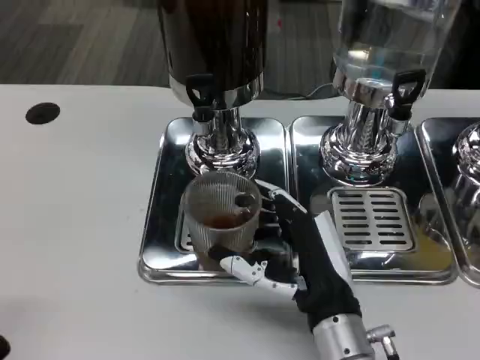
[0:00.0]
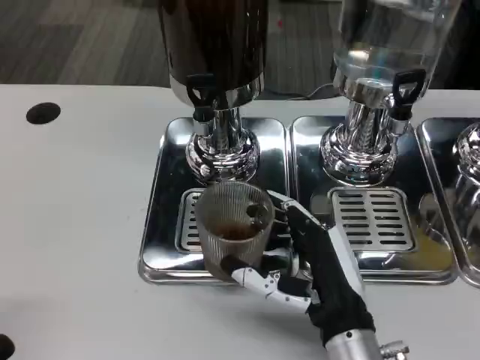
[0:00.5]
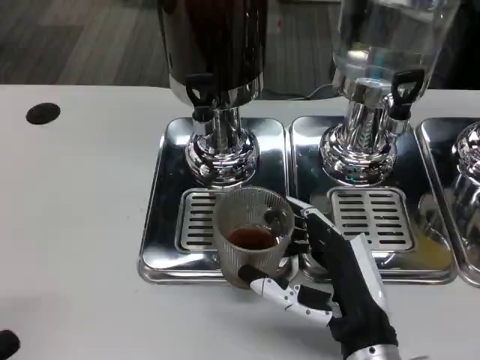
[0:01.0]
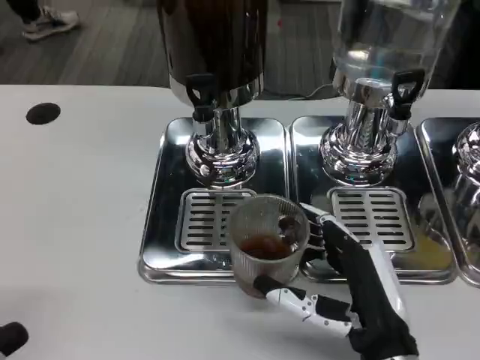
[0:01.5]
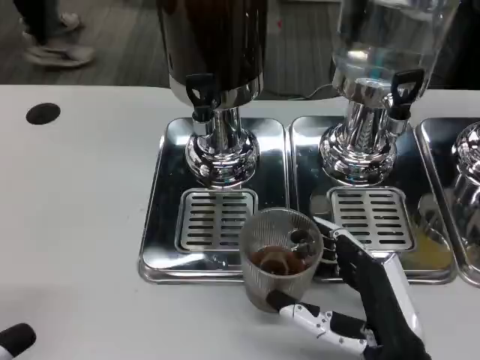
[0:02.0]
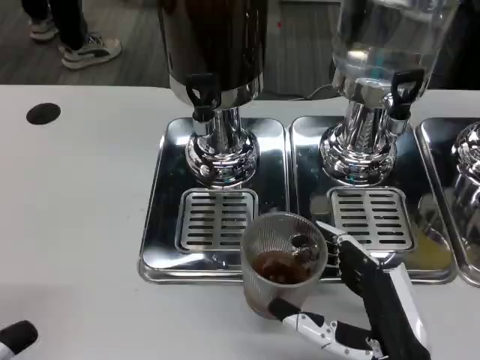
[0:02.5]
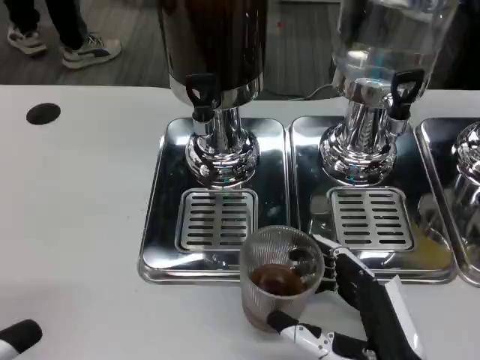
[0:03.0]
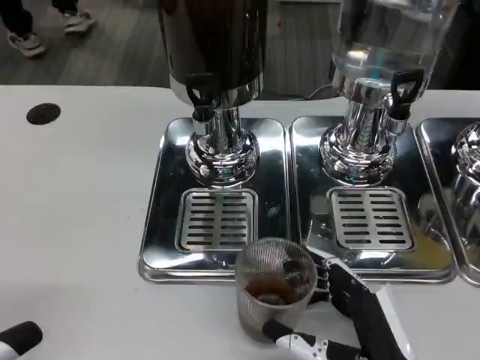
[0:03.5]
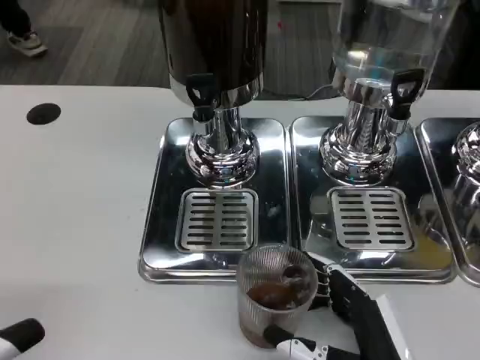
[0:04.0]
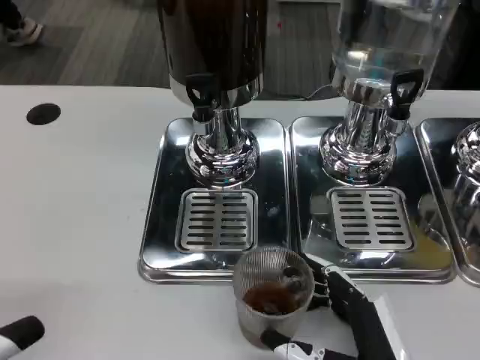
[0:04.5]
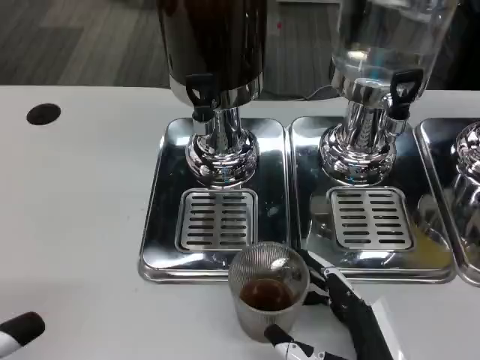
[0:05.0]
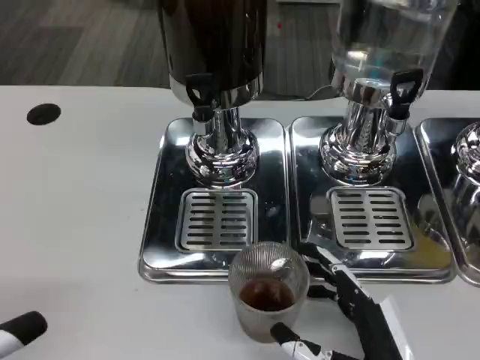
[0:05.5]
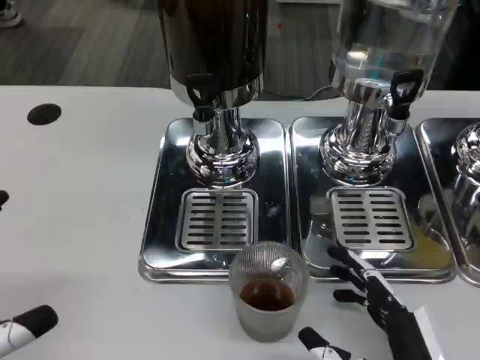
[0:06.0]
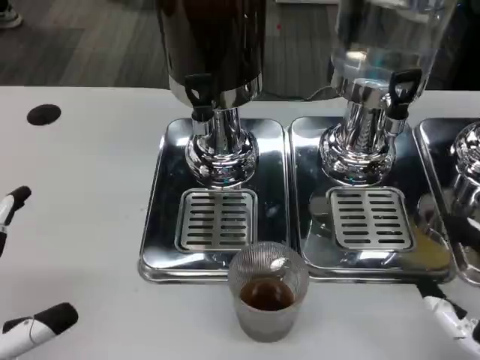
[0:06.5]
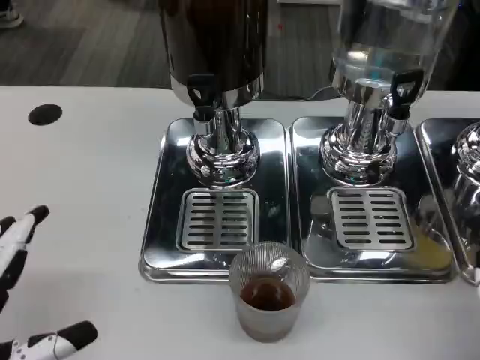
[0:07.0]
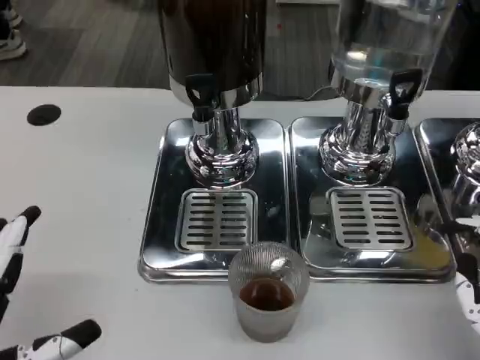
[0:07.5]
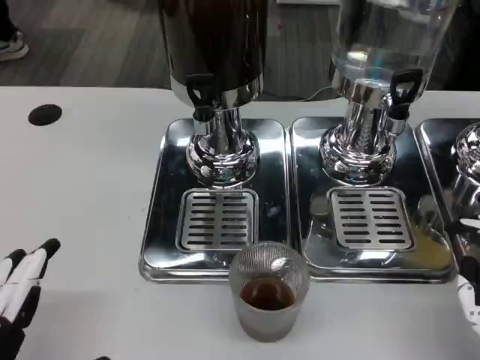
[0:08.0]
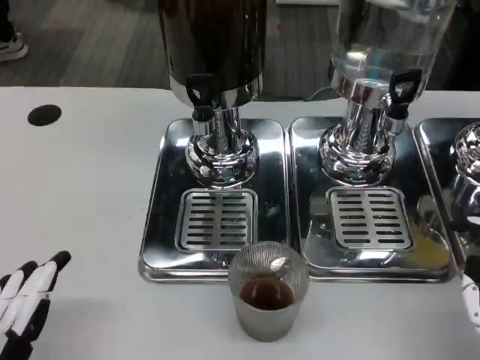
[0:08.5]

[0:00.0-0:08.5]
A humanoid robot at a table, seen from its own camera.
Task of the whole recording: Grasp the cup under the faucet to collect the drink, then remove the cup.
0:00.0 to 0:02.0: The right hand goes roughly 10 cm to the right and backward.
0:02.0 to 0:04.0: There are only small adjustments of the hands.
0:04.0 to 0:06.5: The right hand shifts some 10 cm to the right.
0:06.5 to 0:08.5: The left hand shifts approximately 5 cm downward.

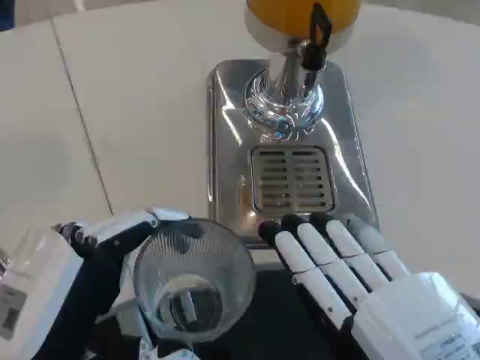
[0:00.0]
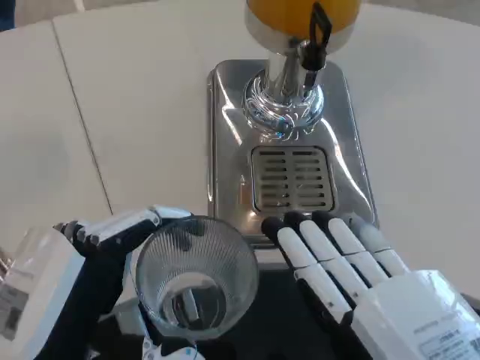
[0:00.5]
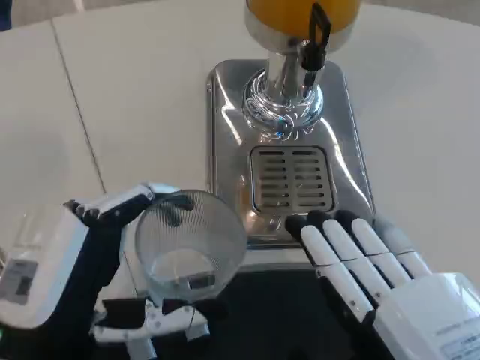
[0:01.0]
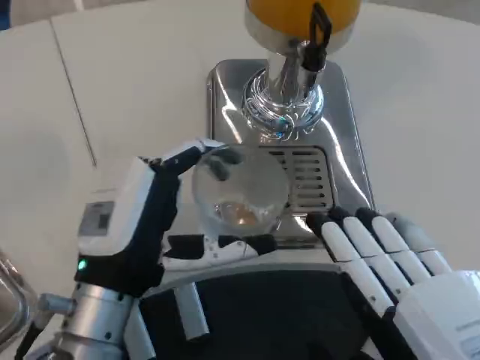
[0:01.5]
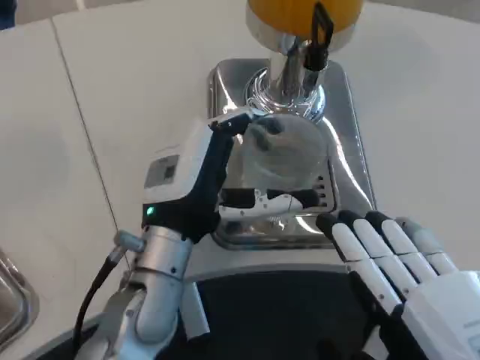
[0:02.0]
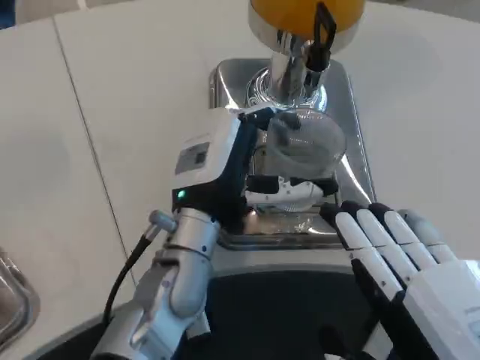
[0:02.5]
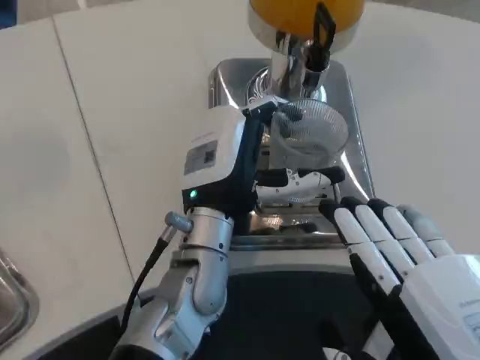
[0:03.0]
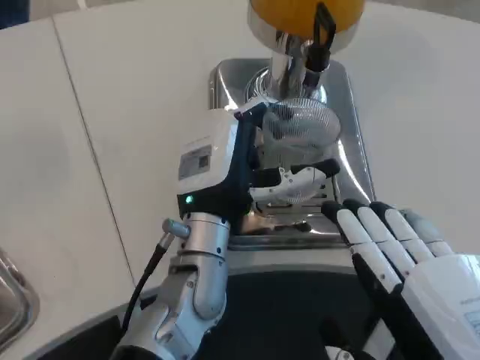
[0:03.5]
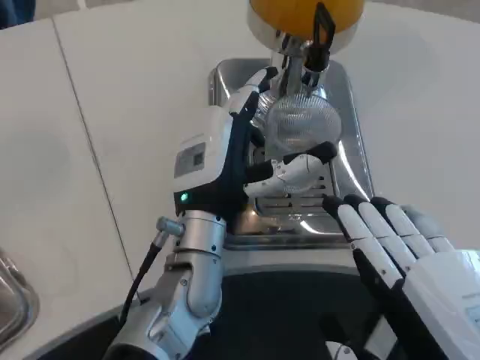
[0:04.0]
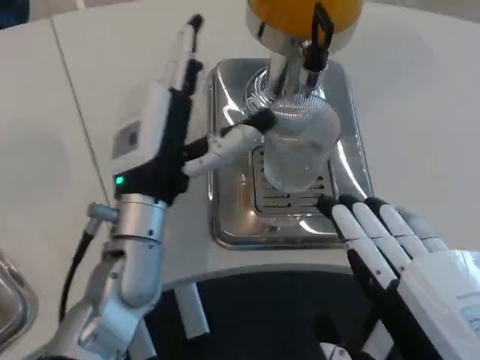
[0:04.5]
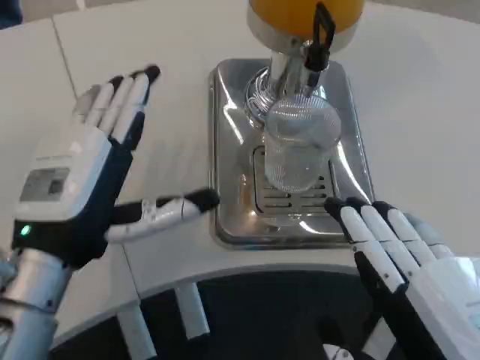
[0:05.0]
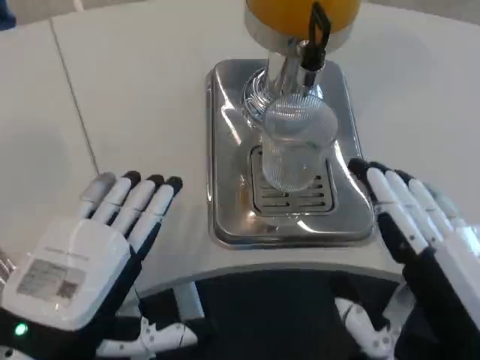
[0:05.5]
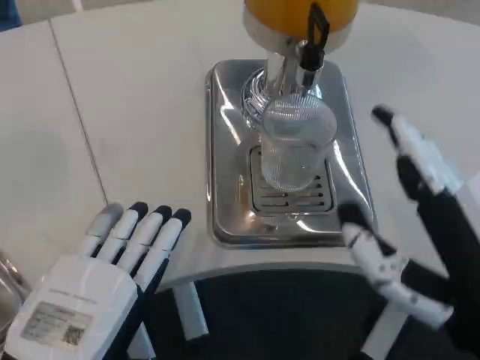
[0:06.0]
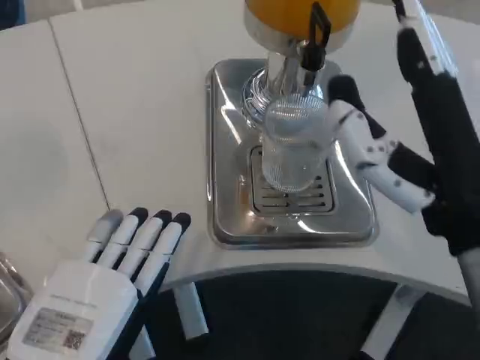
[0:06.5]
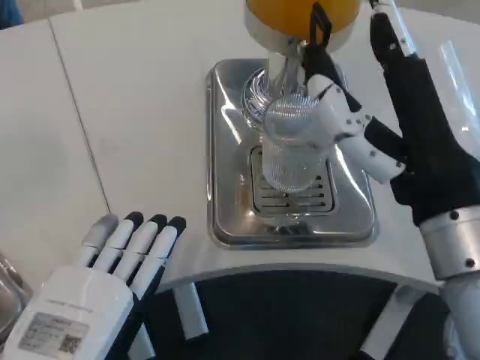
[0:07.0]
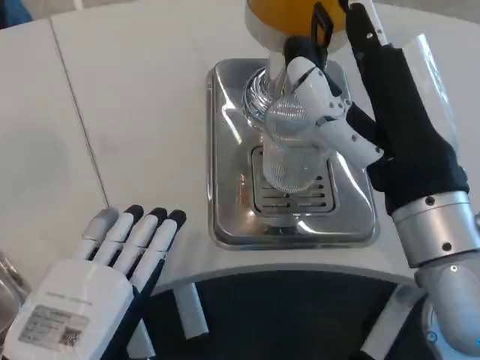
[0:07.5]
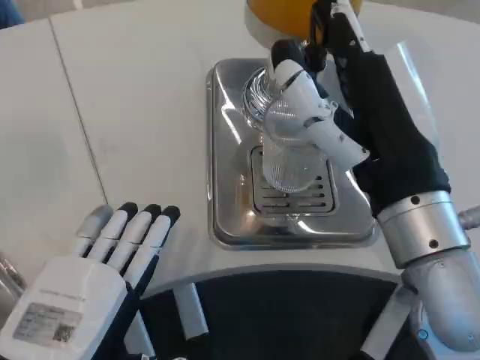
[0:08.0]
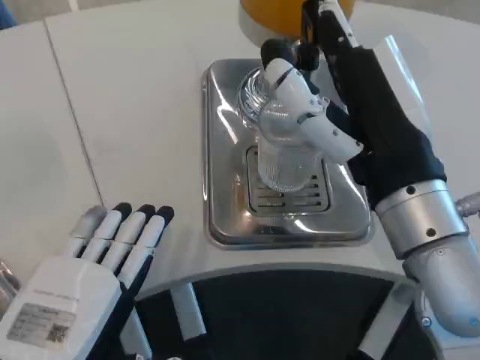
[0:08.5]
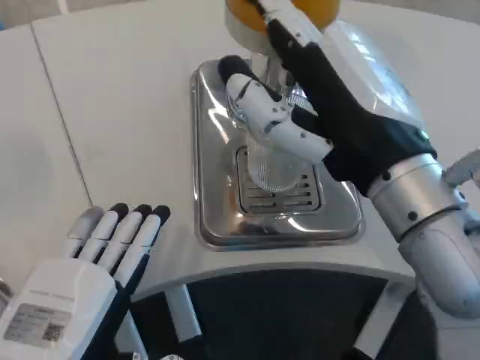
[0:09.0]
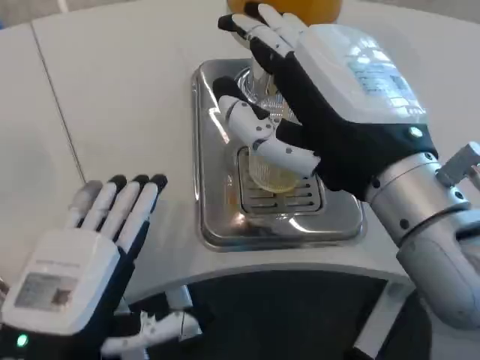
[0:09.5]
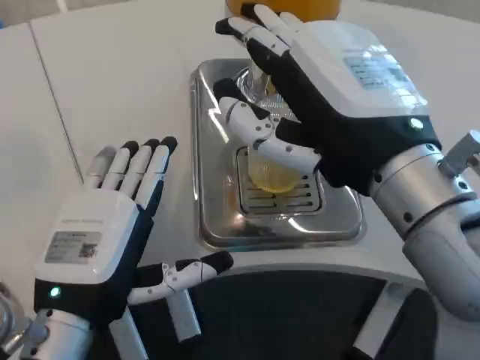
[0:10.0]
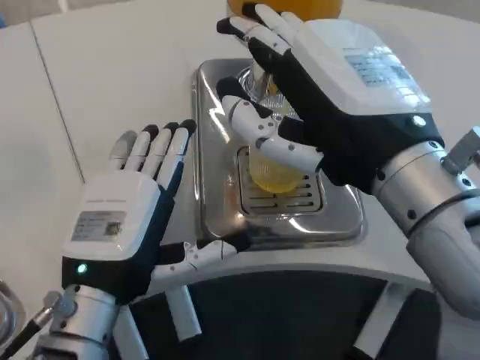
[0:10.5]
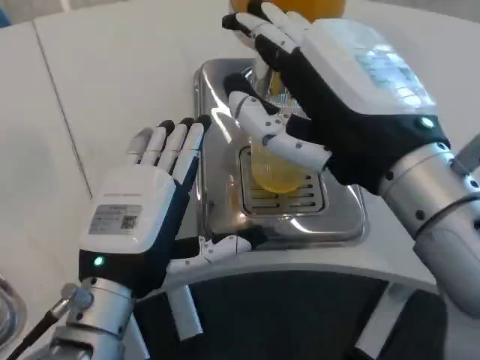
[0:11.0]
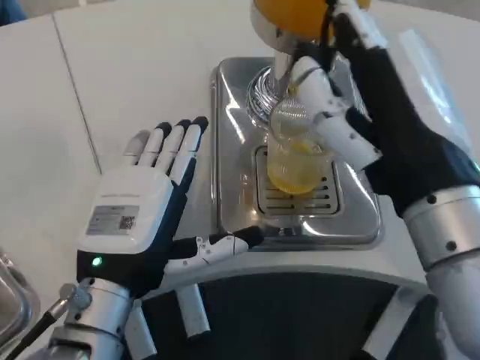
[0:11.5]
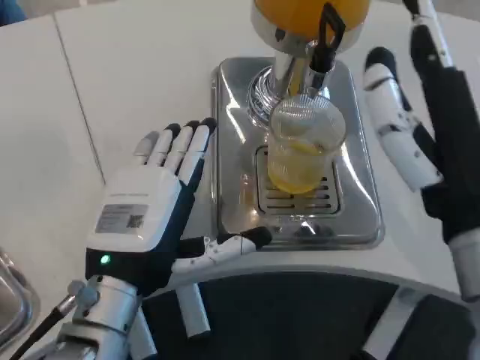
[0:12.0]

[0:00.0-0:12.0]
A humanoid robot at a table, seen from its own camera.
Task of the whole recording: Grasp the cup under the faucet to collect the drink, then remove the cup.
0:00.0 to 0:02.0: The left hand is displaced forward and to the right by approximately 20 cm.
0:04.0 to 0:06.0: The left hand goes about 25 cm backward and to the left.
0:06.0 to 0:08.0: The right hand travels forward by some 10 cm.
0:08.0 to 0:10.0: The left hand goes about 5 cm forward. Meanwhile the right hand shifts about 5 cm upward.
0:10.0 to 0:12.0: The right hand is displaced downward by roughly 5 cm.

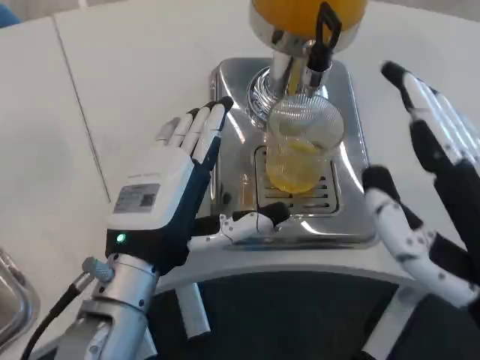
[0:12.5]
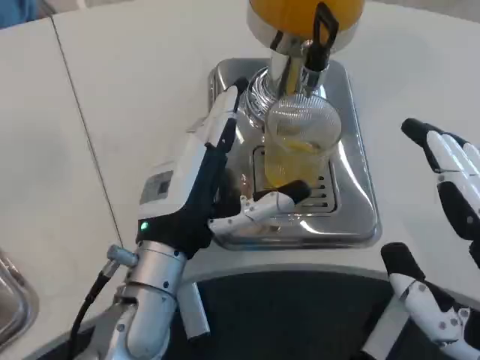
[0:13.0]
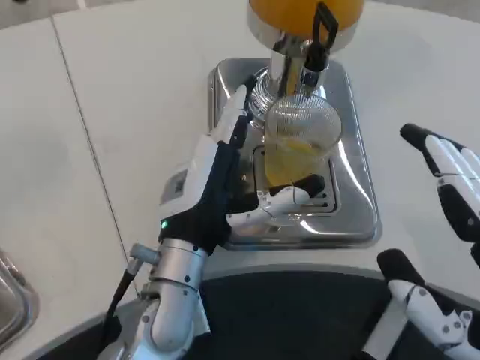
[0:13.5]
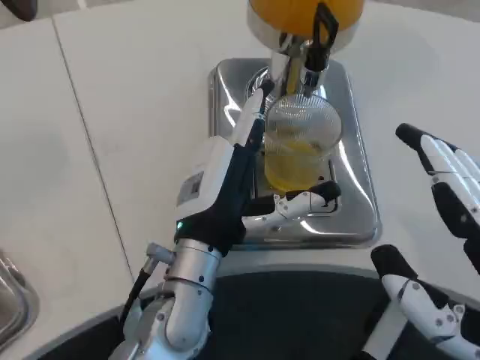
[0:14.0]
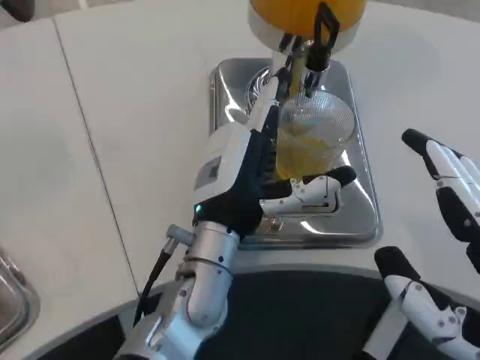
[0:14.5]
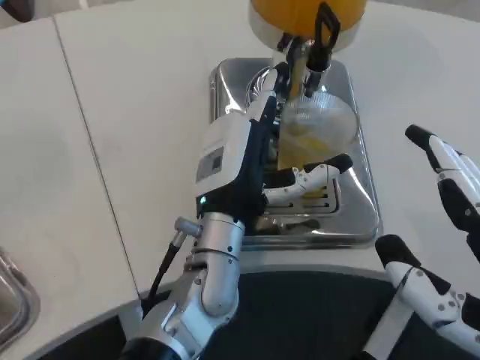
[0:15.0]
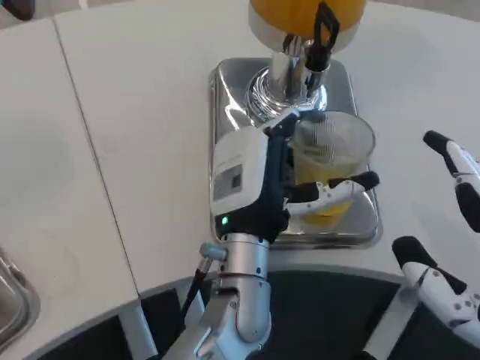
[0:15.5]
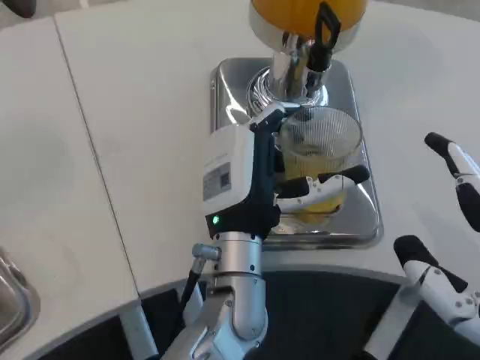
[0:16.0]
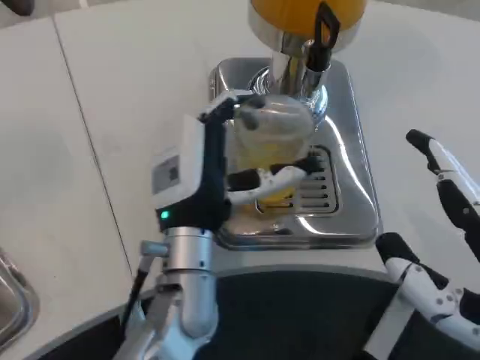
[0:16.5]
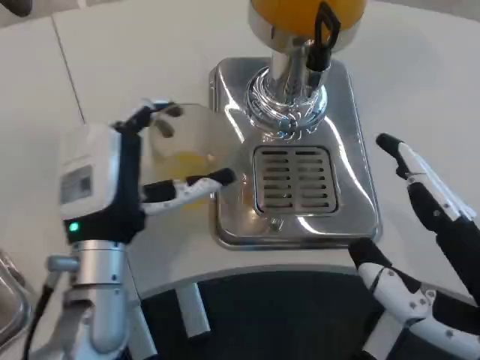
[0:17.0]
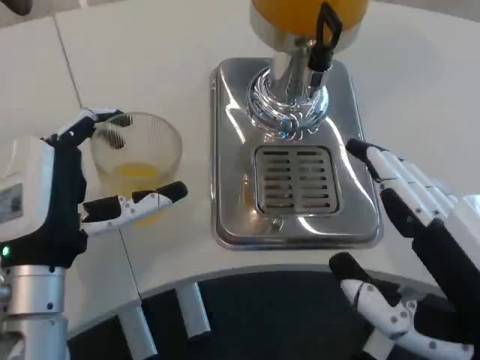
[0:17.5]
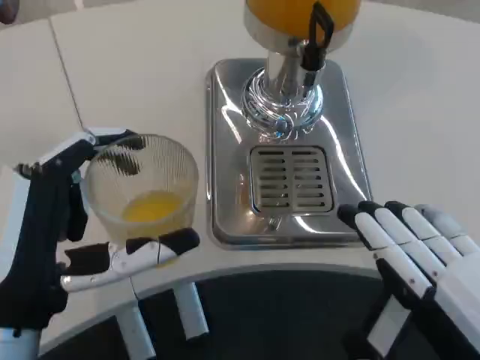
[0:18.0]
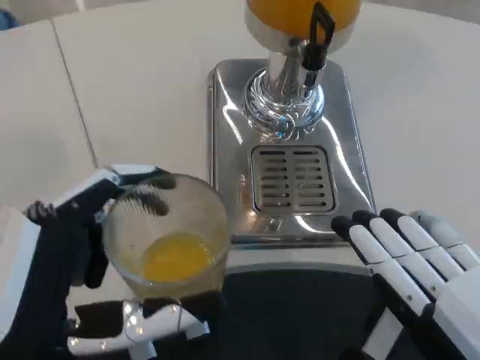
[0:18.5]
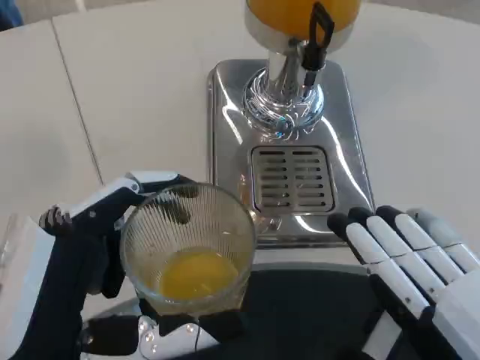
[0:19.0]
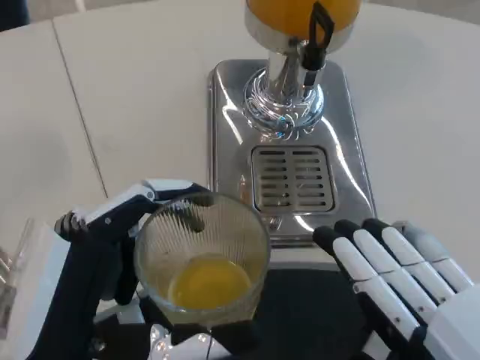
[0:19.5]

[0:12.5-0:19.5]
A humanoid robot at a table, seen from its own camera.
Task of the whole recording: Grasp the cup under the faucet to collect the drink, then remove the cup.
0:12.5 to 0:14.5: The left hand is displaced to the right and forward by approximately 10 cm.
0:16.0 to 0:17.5: The left hand goes approximately 15 cm to the left.
0:17.5 to 0:19.5: The left hand goes some 10 cm backward. Meanwhile the right hand heads backward, covering some 5 cm.
